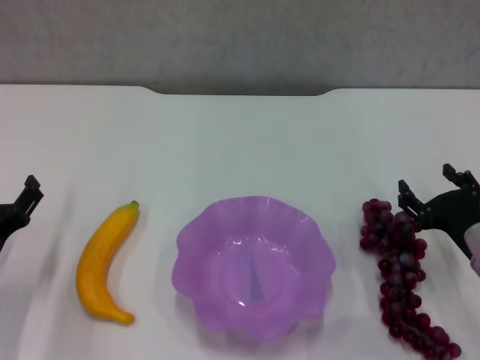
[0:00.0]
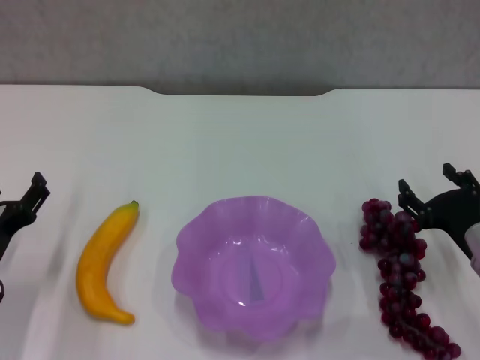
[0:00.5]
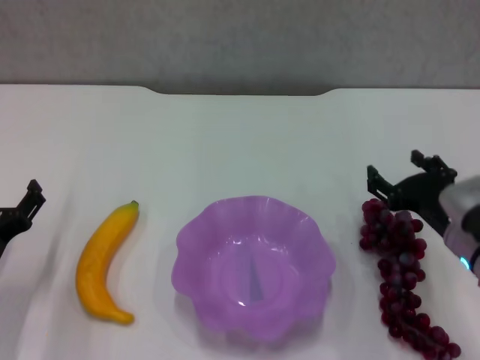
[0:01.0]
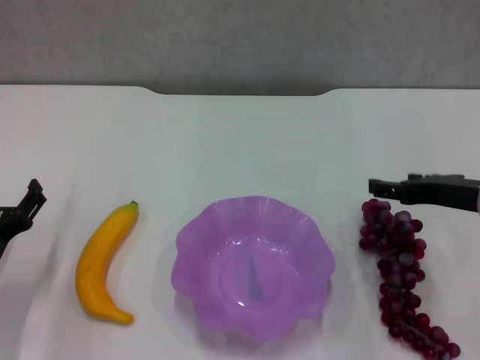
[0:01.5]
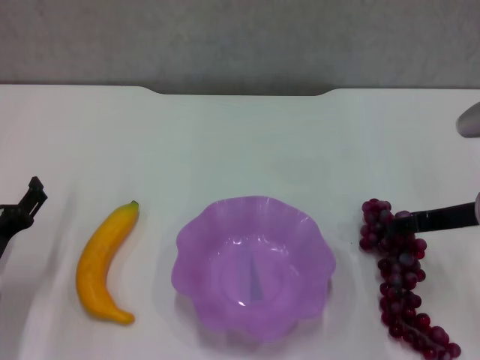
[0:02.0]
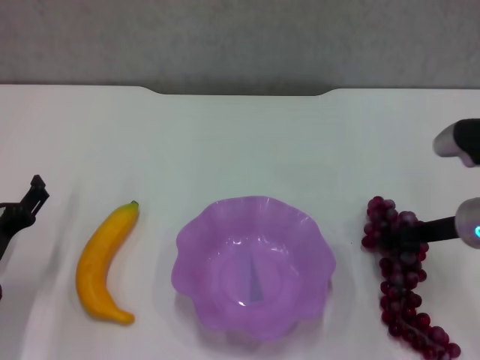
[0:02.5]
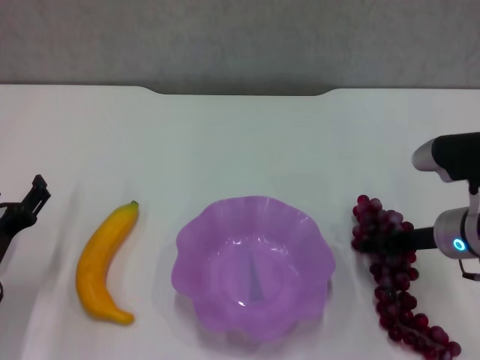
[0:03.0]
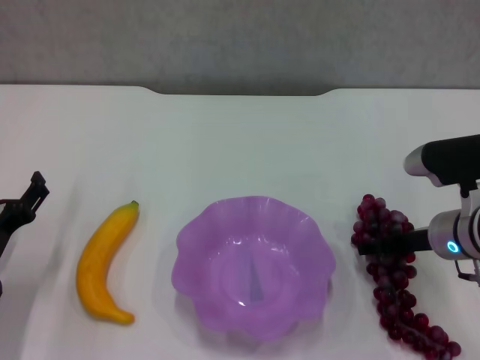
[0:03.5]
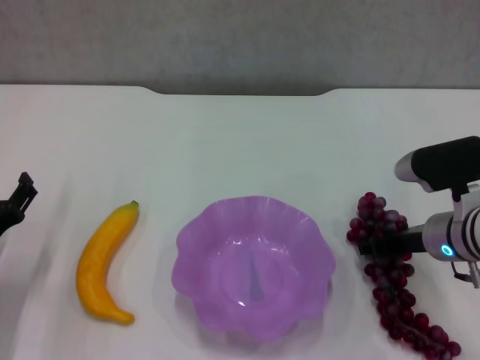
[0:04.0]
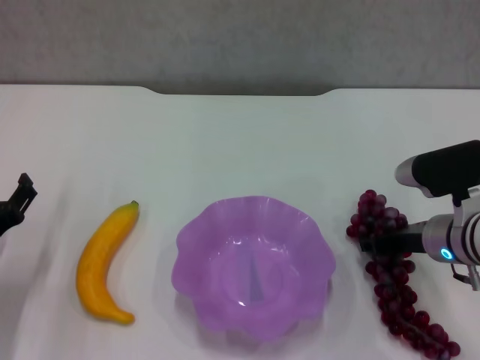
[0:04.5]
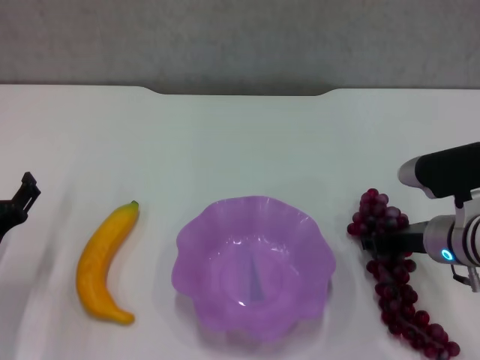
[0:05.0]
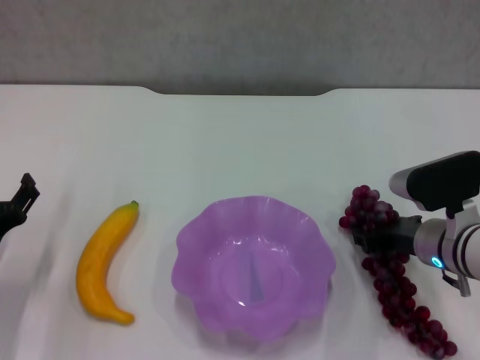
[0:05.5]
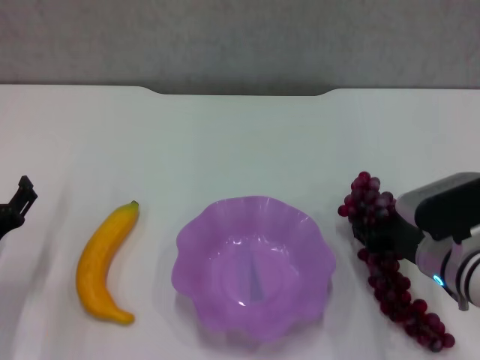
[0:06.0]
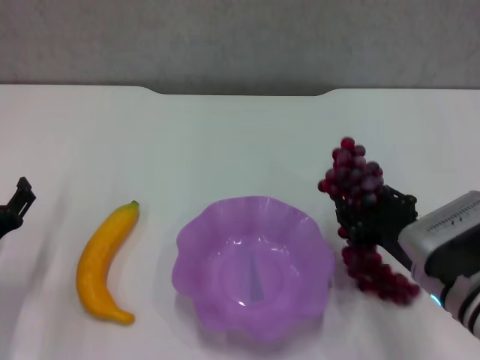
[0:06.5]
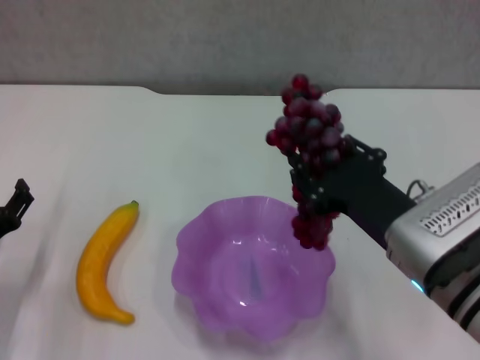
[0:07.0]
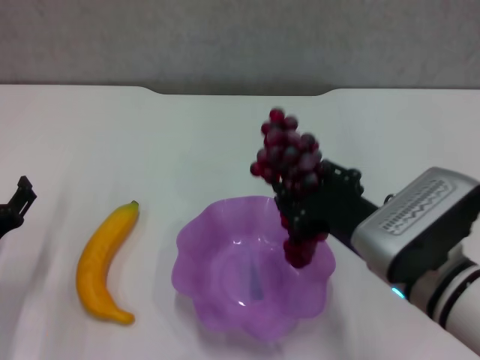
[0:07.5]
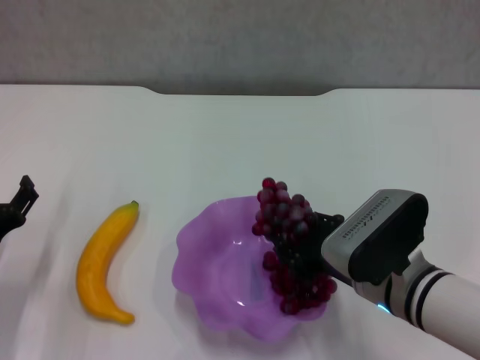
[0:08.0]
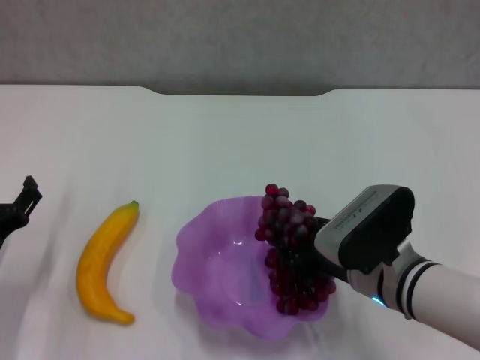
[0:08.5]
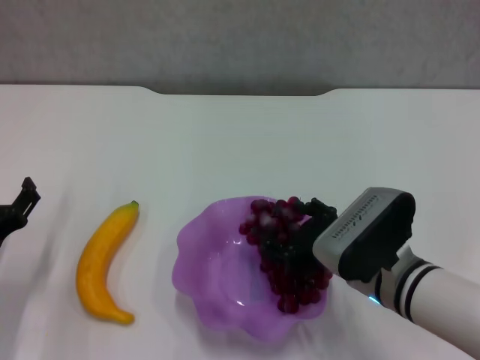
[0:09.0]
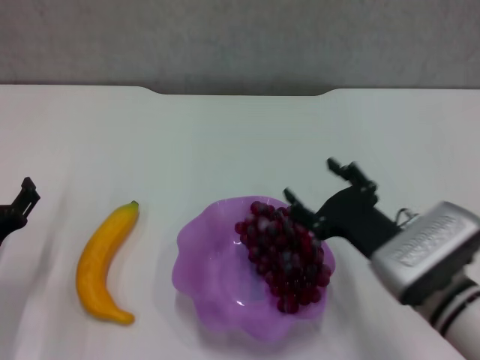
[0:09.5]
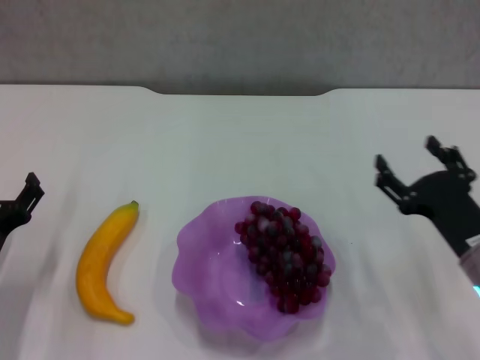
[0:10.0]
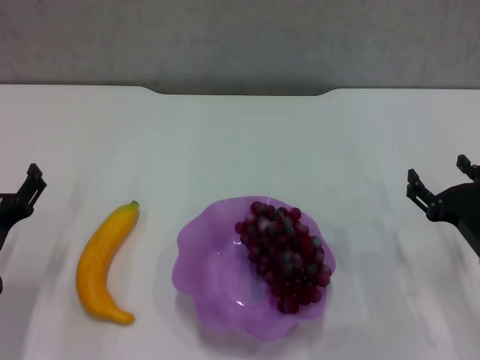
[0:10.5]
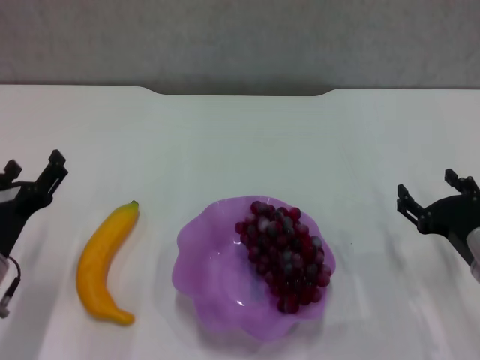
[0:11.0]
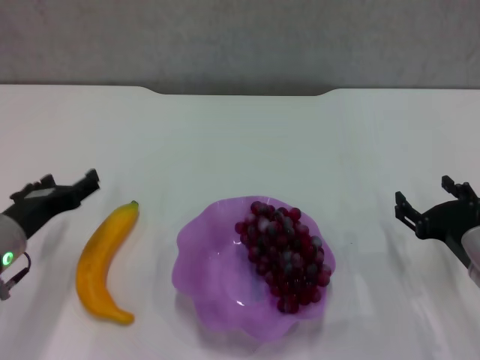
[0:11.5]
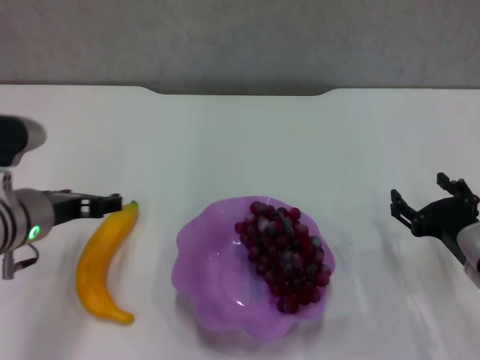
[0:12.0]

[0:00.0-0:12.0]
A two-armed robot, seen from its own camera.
Step, 0:00.0 to 0:04.5: Grasp the grape with right gripper.
Step, 0:05.0 to 0:09.0: Place the grape in the purple plate with right gripper.
0:00.0 to 0:02.0: The right gripper heads upward and forward, covering roughly 10 cm.
0:02.0 to 0:04.0: The right gripper moves downward, about 5 cm.
0:04.0 to 0:06.0: The right gripper closes its fingers.
0:06.0 to 0:08.0: The right gripper moves to the left, approximately 5 cm.
0:08.0 to 0:10.0: The right gripper heads to the right, covering about 10 cm, and opens up.
0:10.0 to 0:12.0: The left gripper shifts some 15 cm upward, to the right and forward.

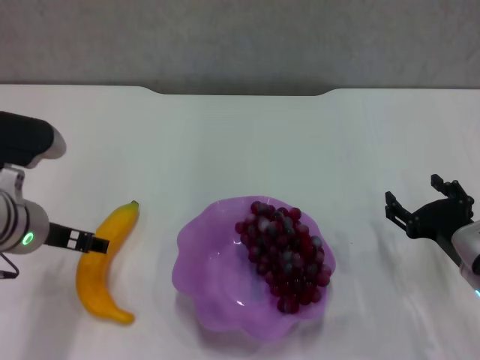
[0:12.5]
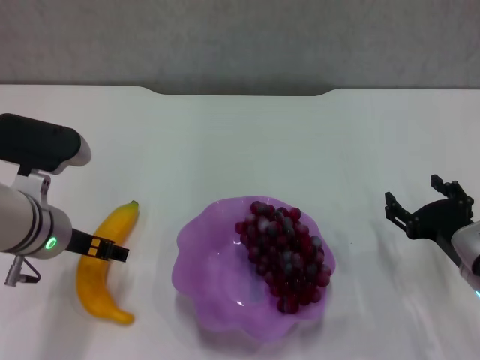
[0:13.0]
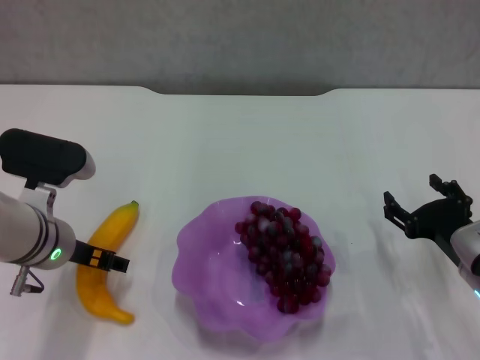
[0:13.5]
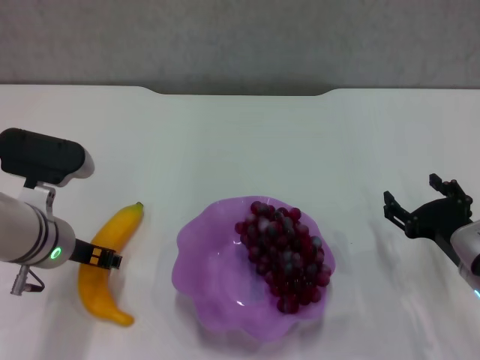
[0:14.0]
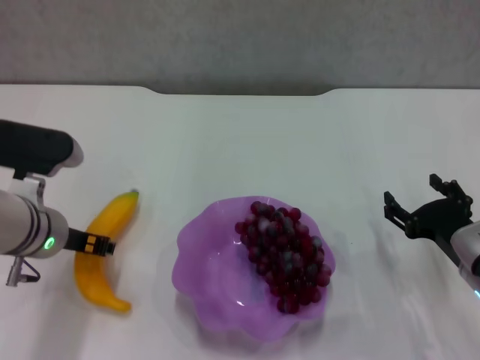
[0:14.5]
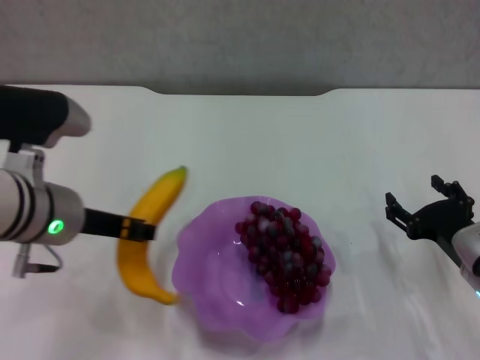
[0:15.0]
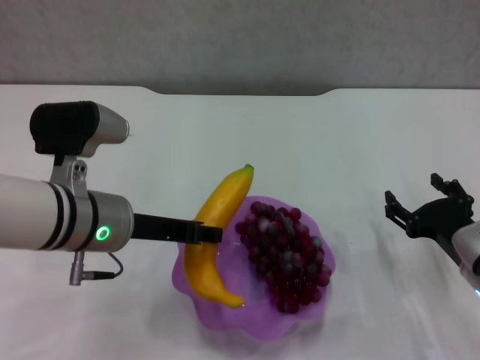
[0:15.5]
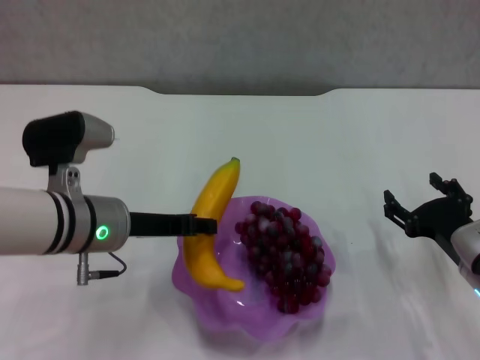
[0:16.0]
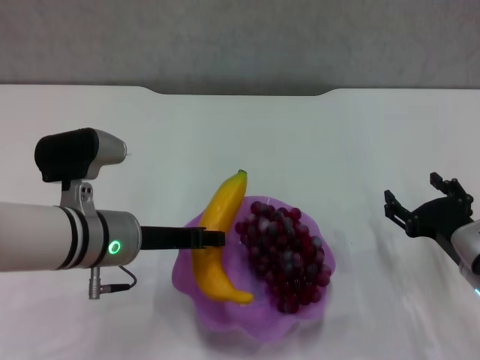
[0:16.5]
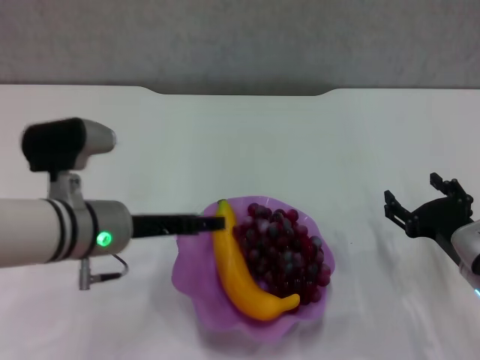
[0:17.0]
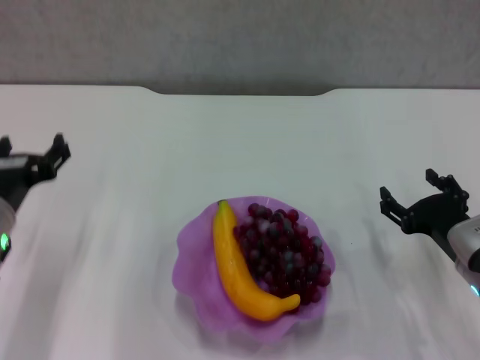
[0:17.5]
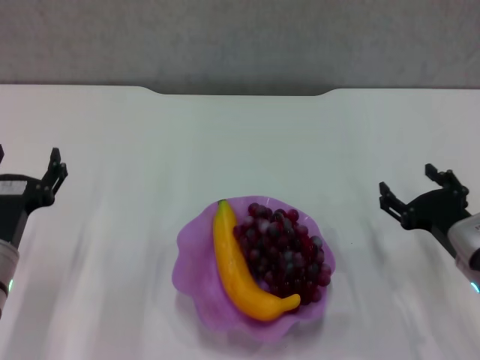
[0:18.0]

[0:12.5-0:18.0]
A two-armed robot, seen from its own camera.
Step, 0:14.5 to 0:16.5: Place the banana in the purple plate with left gripper.
0:12.5 to 0:14.5: The left gripper closes.
0:16.0 to 0:18.0: The left gripper heads to the left, downward and backward, covering some 10 cm, and opens.

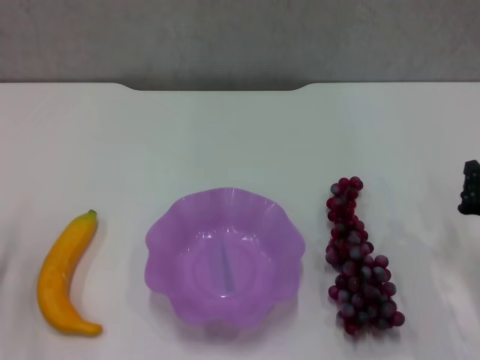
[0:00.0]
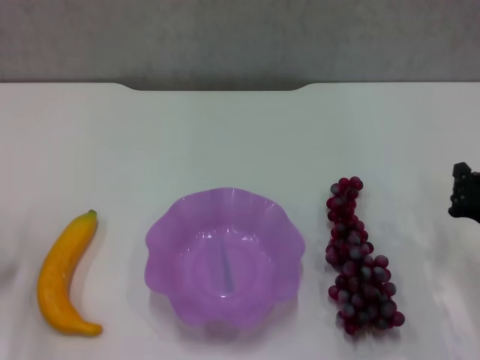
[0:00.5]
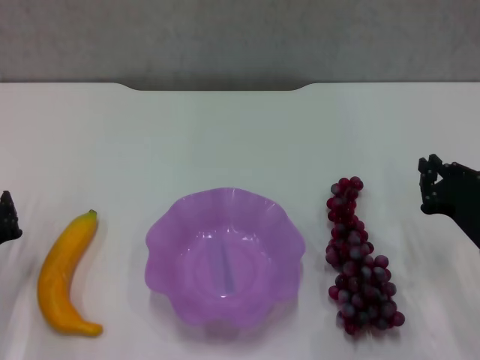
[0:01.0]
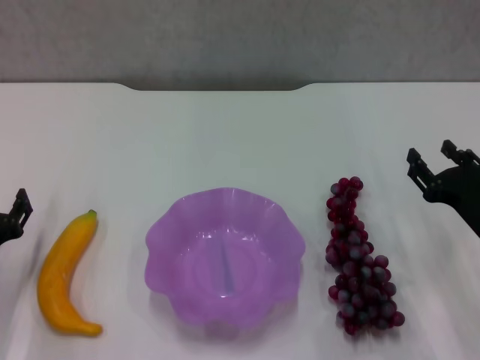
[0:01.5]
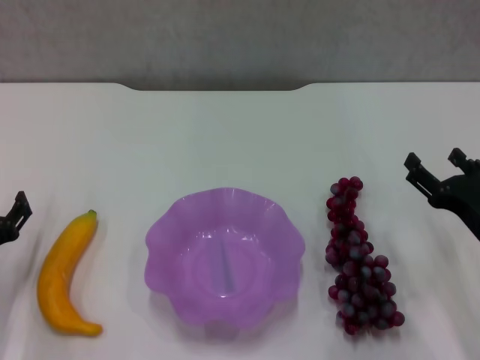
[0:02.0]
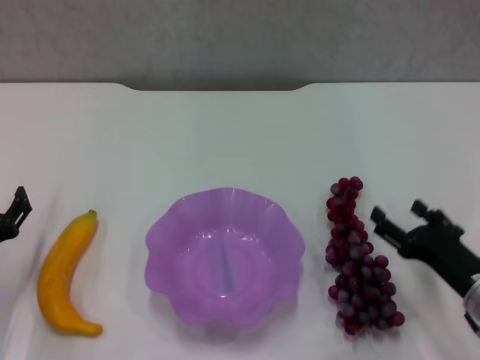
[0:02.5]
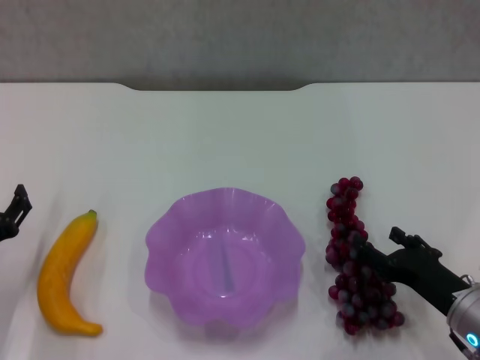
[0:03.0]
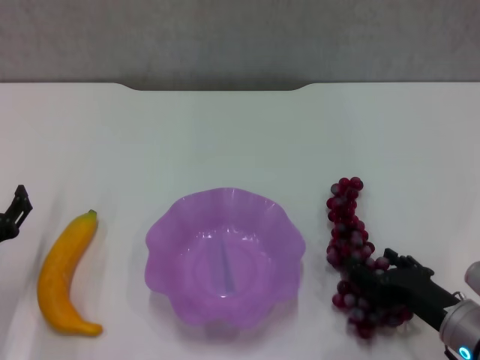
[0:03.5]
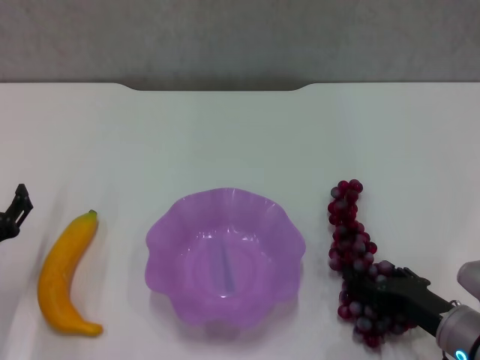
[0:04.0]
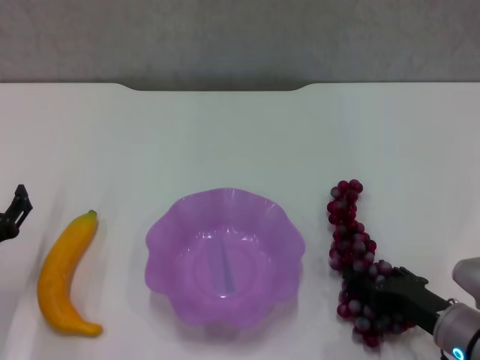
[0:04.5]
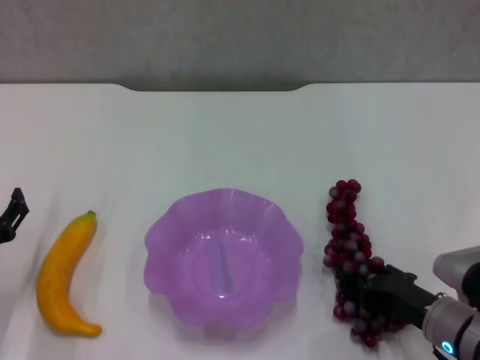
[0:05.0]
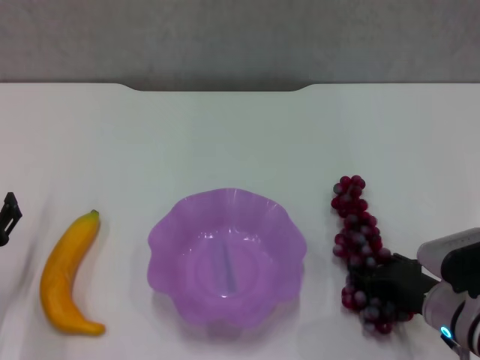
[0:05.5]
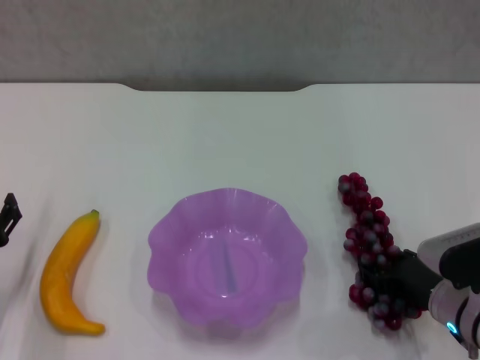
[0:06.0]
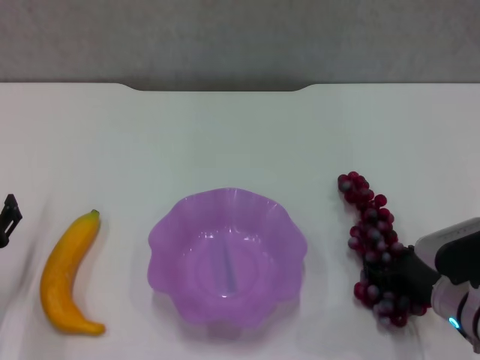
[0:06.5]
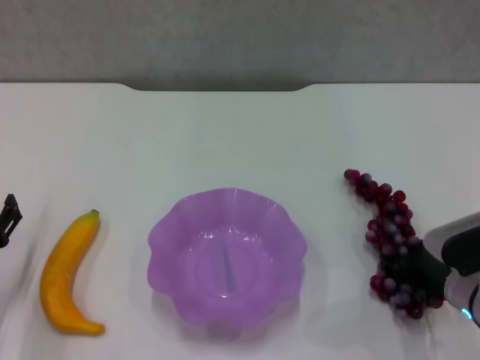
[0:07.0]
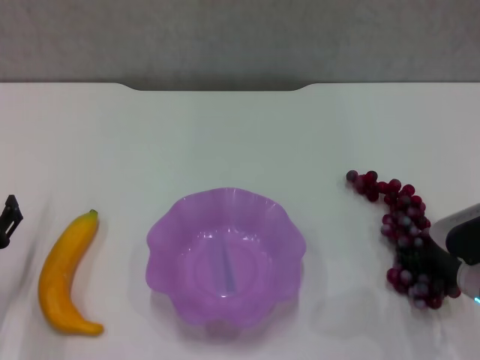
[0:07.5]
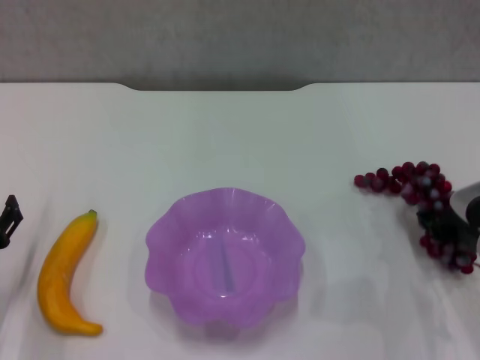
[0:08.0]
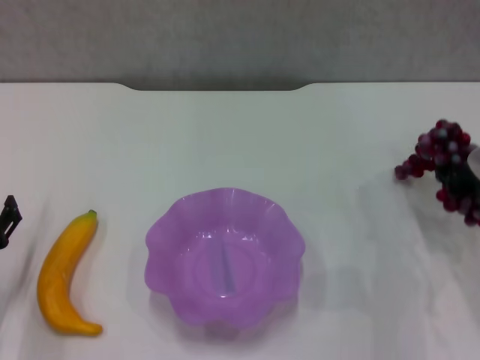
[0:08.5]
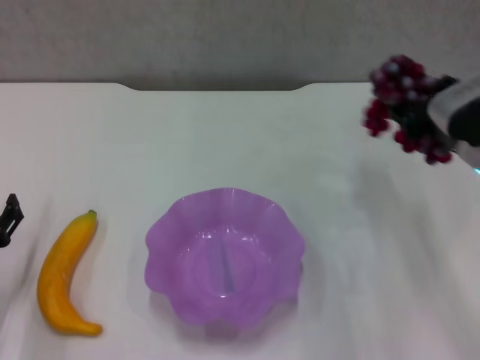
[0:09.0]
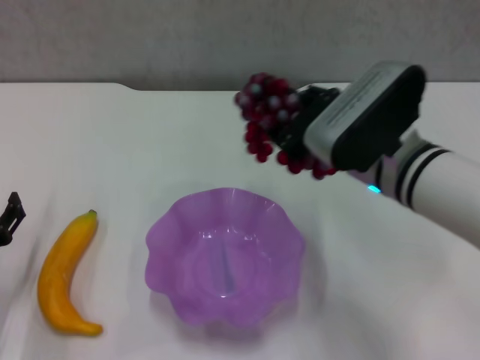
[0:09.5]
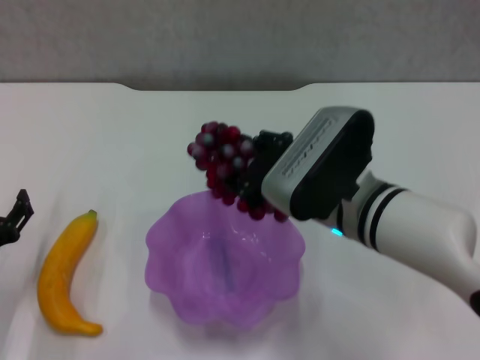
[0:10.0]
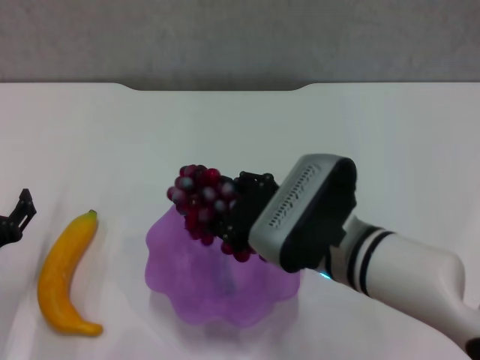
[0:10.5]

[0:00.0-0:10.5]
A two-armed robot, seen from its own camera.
Step, 0:00.0 to 0:06.0: Grasp the grape with right gripper.
0:00.0 to 0:02.0: The left gripper opens its fingers; the right gripper opens its fingers.
0:02.0 to 0:04.0: The right gripper is displaced downward by some 5 cm.
0:06.5 to 0:08.5: The right gripper is displaced upward and forward by approximately 10 cm.
0:08.5 to 0:10.5: The right gripper moves to the left, approximately 20 cm.
